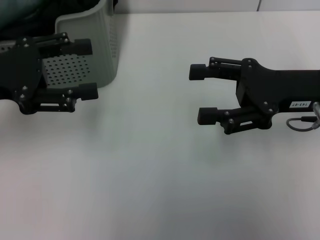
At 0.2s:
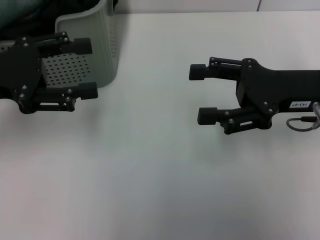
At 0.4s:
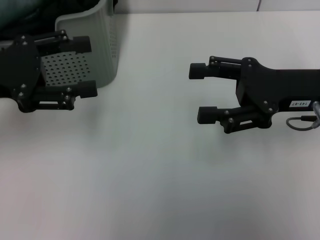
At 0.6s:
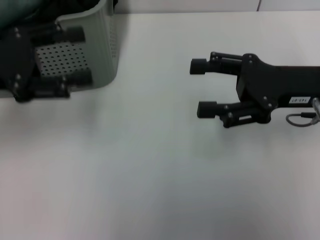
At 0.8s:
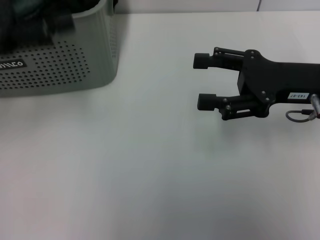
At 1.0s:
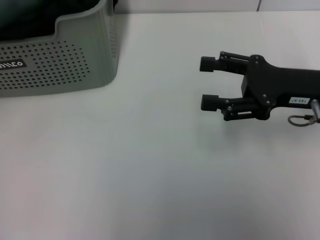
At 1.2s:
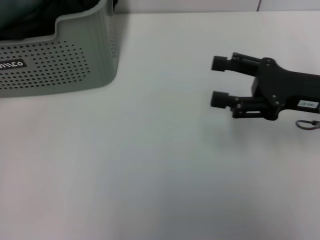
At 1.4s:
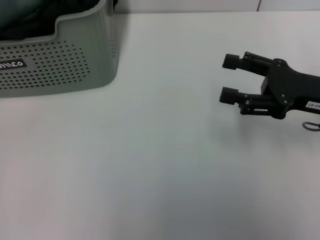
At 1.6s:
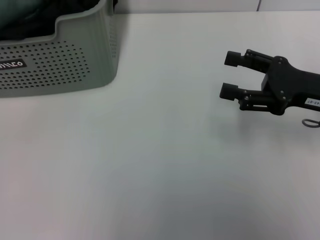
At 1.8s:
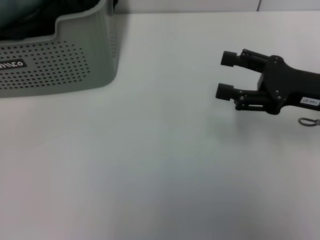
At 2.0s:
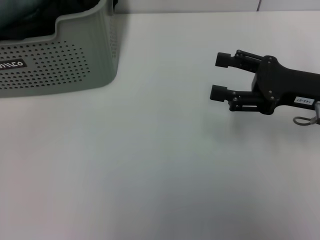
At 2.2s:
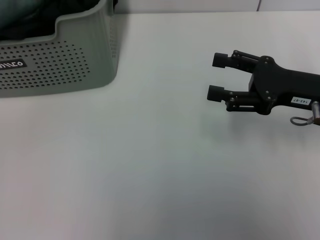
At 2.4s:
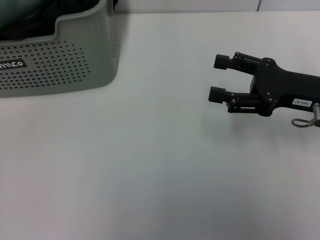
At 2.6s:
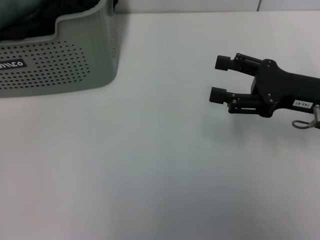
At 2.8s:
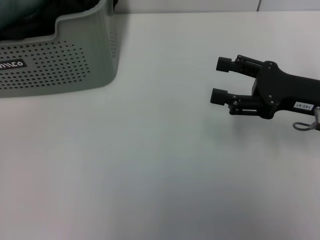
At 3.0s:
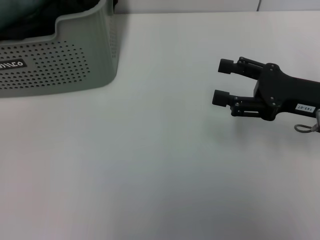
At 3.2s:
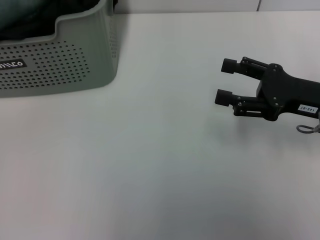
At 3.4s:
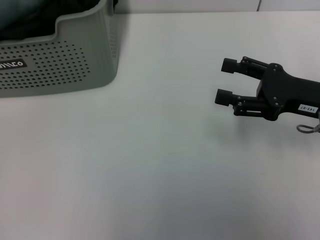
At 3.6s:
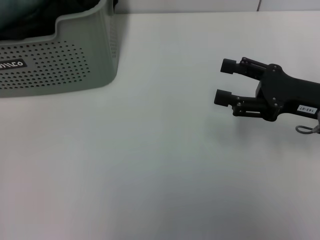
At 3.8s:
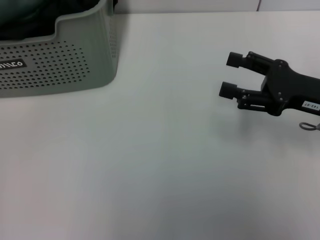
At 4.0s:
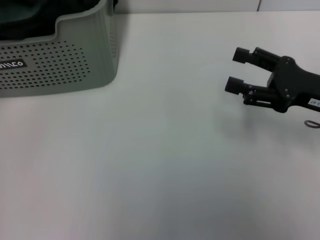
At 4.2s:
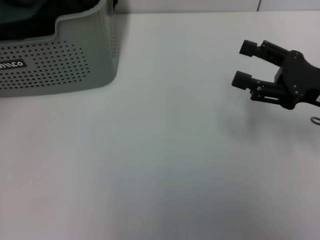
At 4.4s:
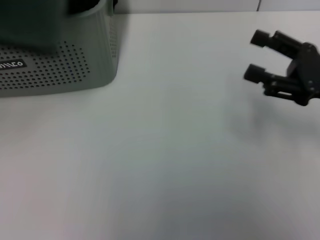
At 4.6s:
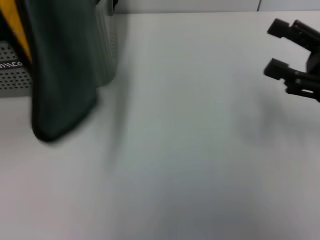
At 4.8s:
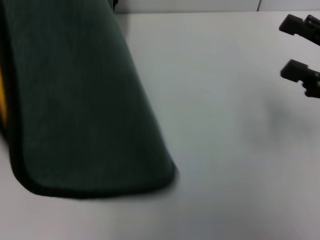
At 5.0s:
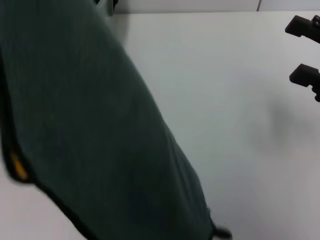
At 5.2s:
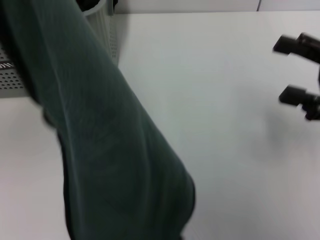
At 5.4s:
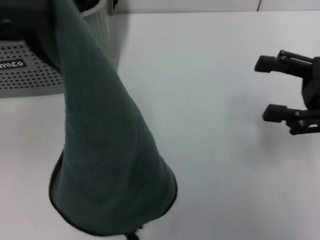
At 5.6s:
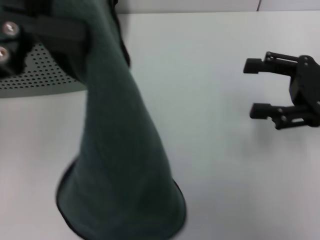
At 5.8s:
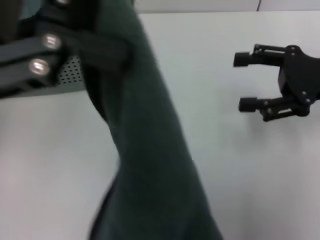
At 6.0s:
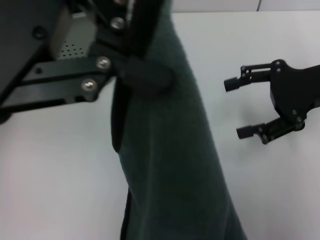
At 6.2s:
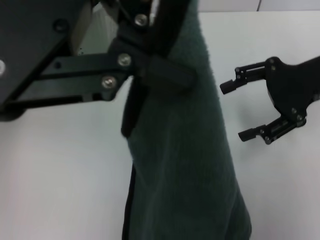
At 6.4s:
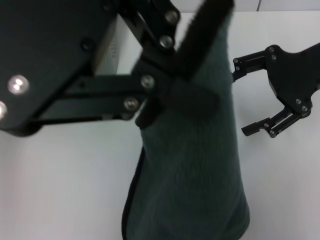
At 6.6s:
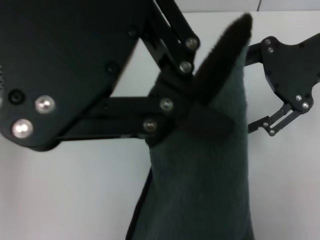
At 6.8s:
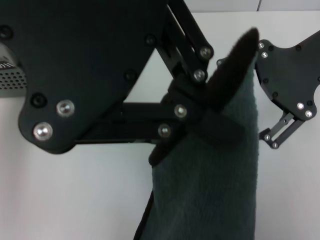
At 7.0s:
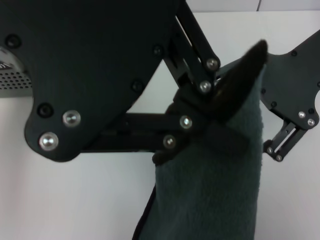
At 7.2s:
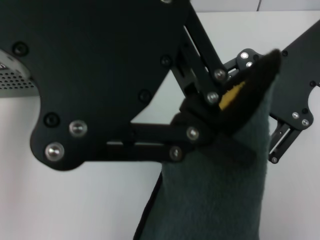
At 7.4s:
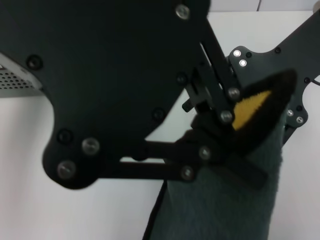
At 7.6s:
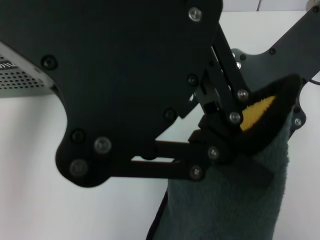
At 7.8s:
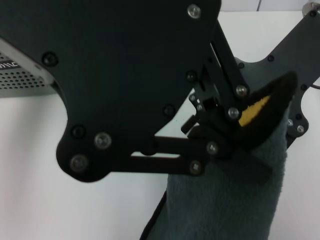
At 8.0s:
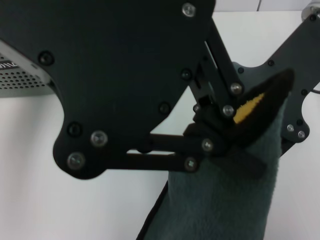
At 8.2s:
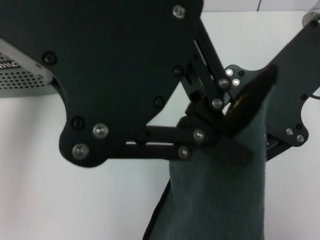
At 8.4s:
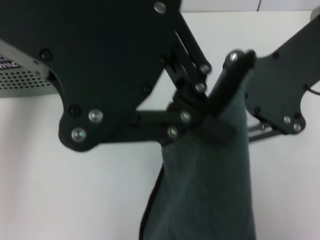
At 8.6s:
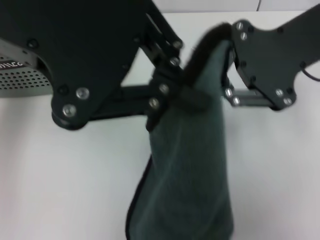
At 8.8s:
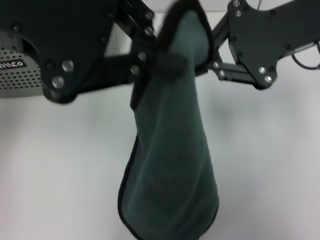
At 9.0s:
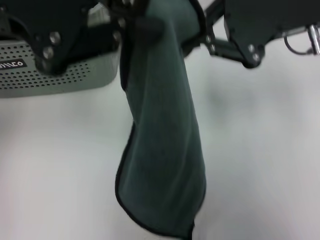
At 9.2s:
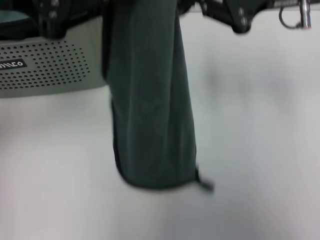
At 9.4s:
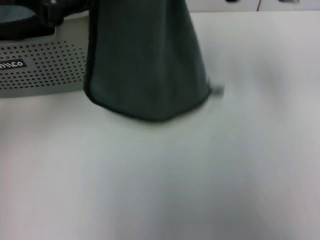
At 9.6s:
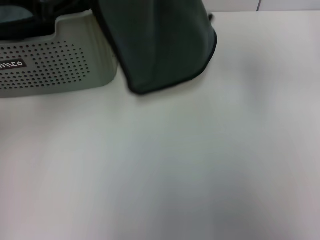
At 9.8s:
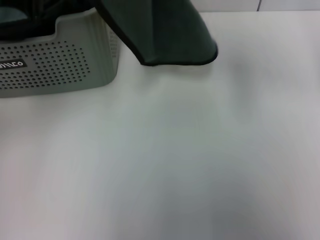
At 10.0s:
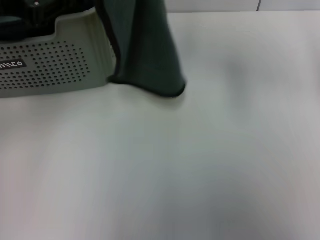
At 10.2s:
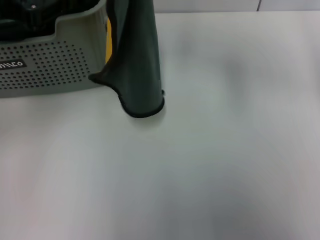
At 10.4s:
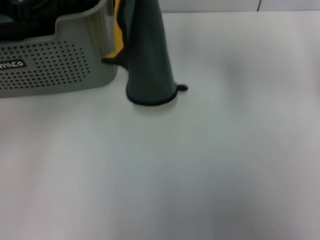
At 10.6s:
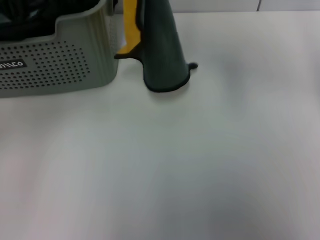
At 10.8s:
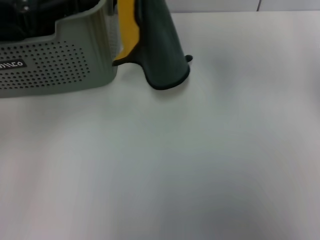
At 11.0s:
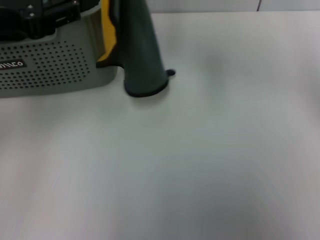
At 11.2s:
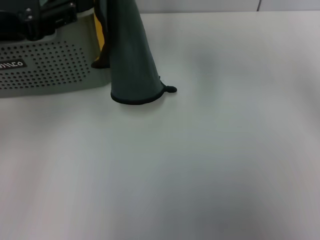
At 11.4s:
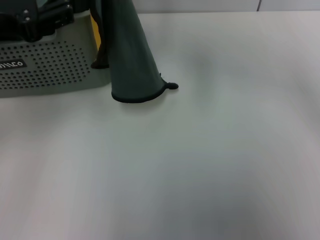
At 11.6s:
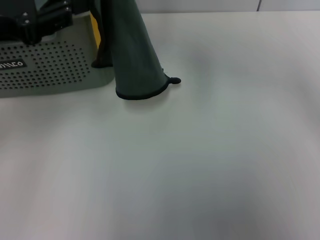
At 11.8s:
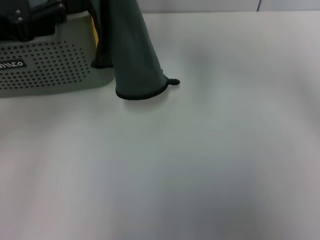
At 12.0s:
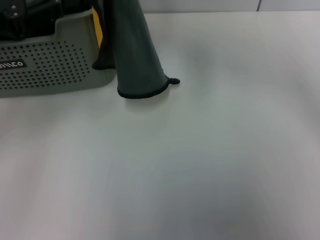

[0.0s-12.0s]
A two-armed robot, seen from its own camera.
Task of the whole recording: pick up the towel from the storage box and lay it flat on the table.
Step, 0.0s to 4.0s: Pick up a towel with the left gripper.
Step, 4.2s to 8.2s: Spread the towel flat with the left gripper.
0.0s to 1.6s: The left gripper moves upward and to the left, about 15 cm.
1.6s to 3.0s: The grippers stay close to where they were, moving slightly.
3.0s to 4.4s: The left gripper travels upward, to the right and backward by approximately 15 cm, and closes its fingers.
4.4s to 6.0s: The left gripper is displaced to the right by some 10 cm. The right gripper shifts roughly 5 cm upward.
6.0s to 7.6s: The left gripper is displaced to the right by approximately 5 cm; the right gripper travels upward and to the left by some 15 cm.
7.6s to 9.0s: The right gripper closes its fingers, while the left gripper shifts roughly 10 cm to the left and downward.
9.0s to 10.4s: The right gripper travels to the left by approximately 5 cm. The left gripper is displaced downward and to the left by about 10 cm.
10.4s to 12.0s: The right gripper is displaced to the left by about 5 cm.

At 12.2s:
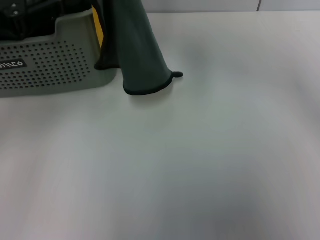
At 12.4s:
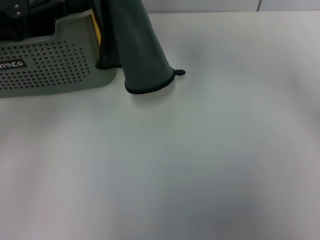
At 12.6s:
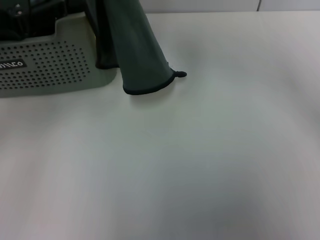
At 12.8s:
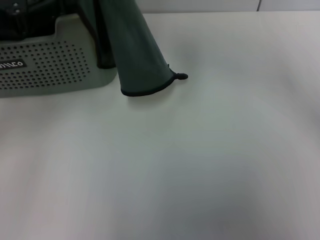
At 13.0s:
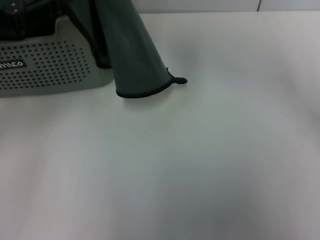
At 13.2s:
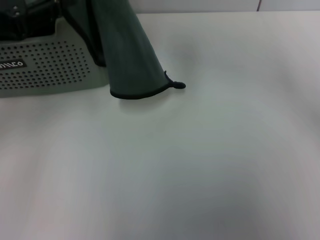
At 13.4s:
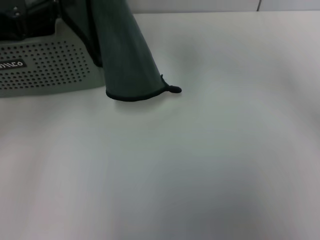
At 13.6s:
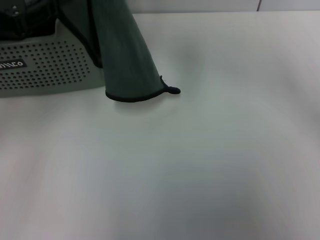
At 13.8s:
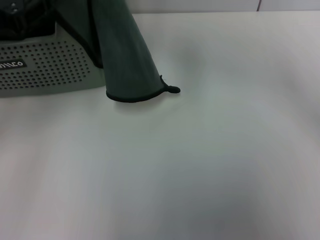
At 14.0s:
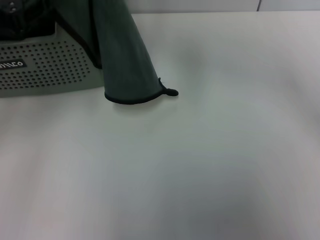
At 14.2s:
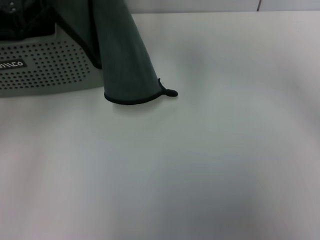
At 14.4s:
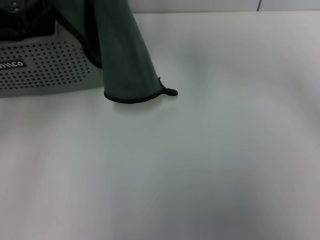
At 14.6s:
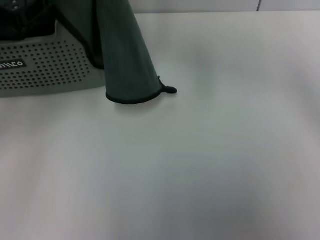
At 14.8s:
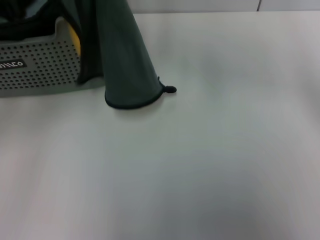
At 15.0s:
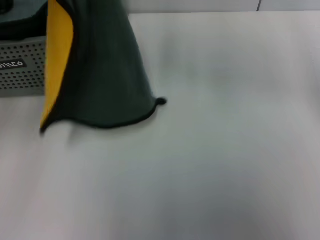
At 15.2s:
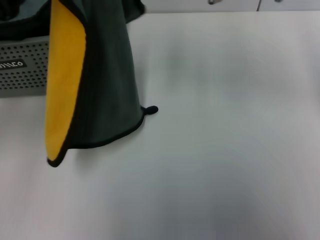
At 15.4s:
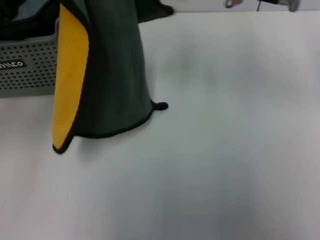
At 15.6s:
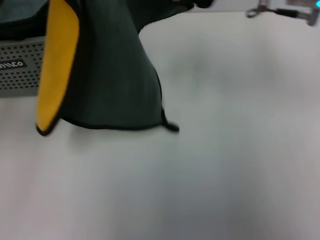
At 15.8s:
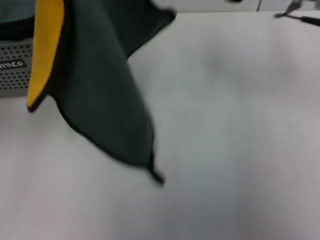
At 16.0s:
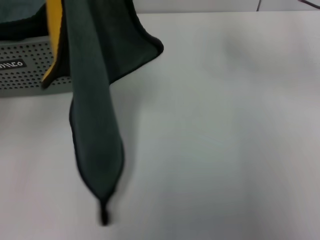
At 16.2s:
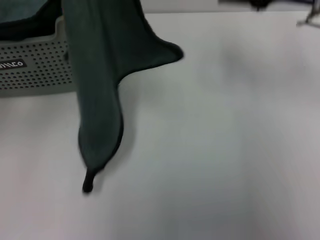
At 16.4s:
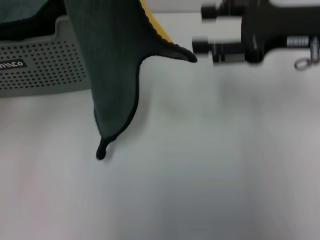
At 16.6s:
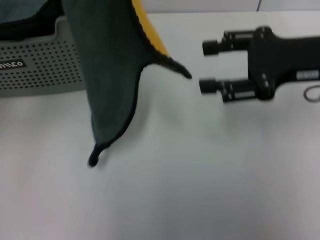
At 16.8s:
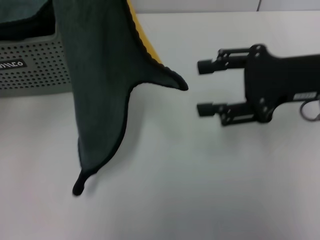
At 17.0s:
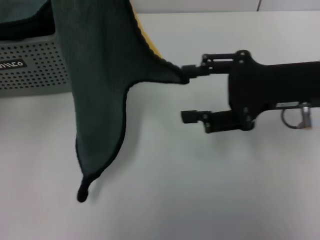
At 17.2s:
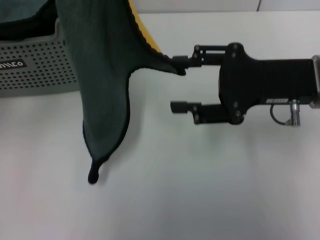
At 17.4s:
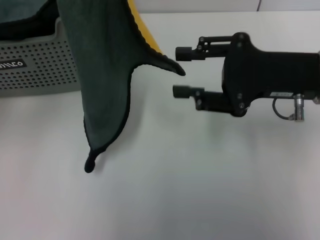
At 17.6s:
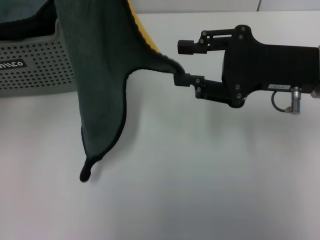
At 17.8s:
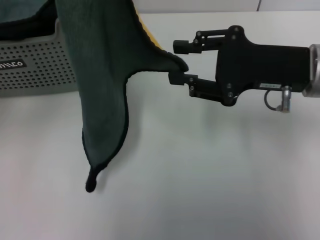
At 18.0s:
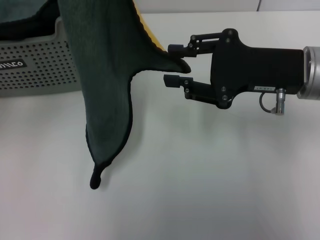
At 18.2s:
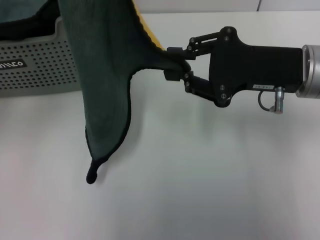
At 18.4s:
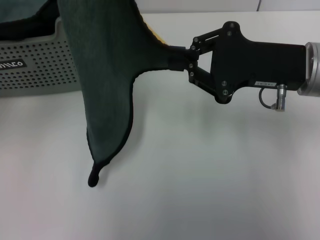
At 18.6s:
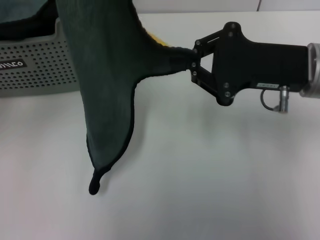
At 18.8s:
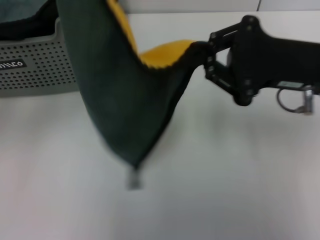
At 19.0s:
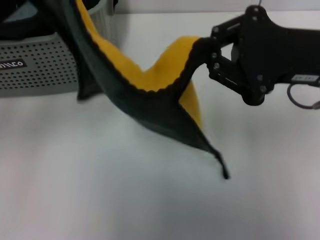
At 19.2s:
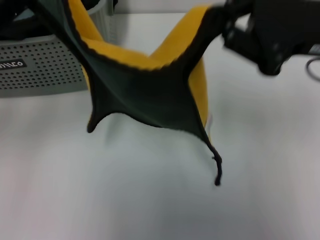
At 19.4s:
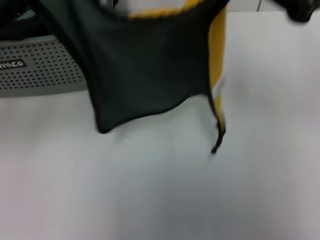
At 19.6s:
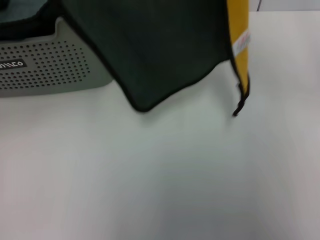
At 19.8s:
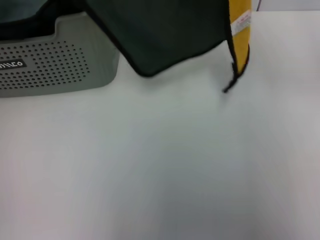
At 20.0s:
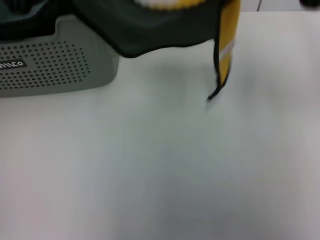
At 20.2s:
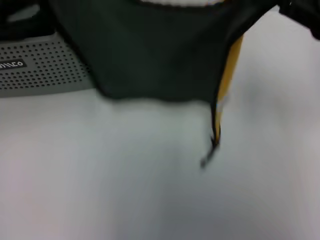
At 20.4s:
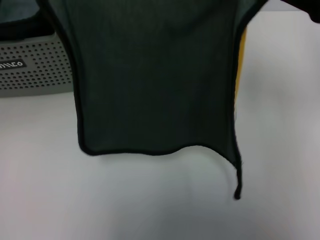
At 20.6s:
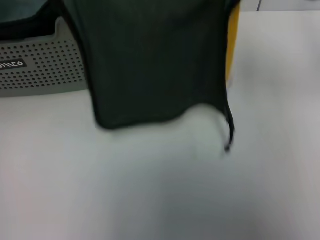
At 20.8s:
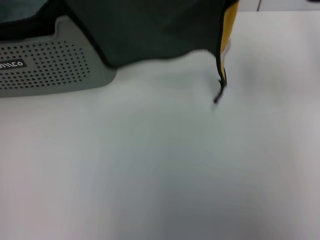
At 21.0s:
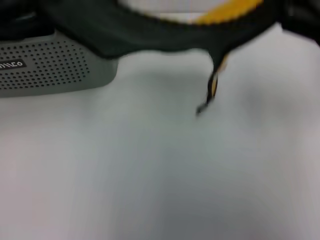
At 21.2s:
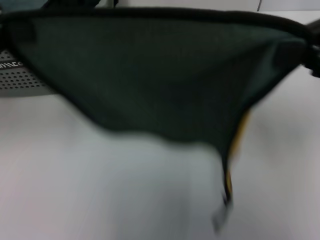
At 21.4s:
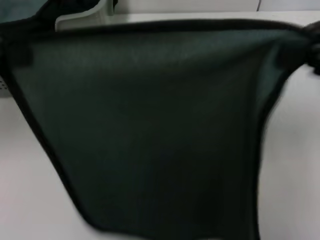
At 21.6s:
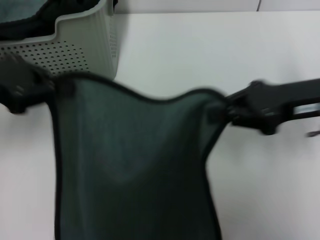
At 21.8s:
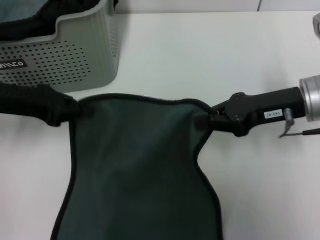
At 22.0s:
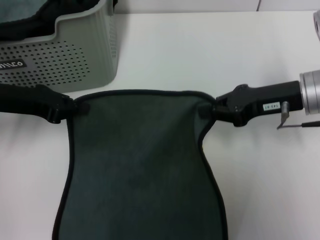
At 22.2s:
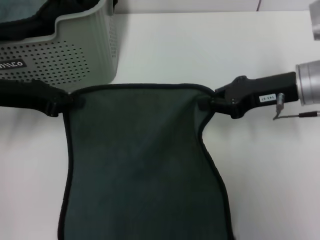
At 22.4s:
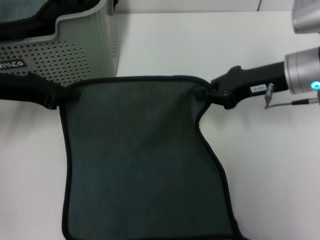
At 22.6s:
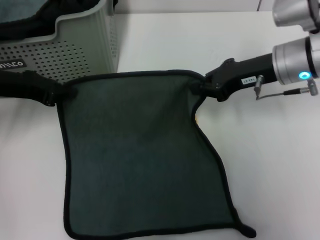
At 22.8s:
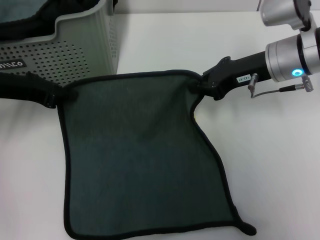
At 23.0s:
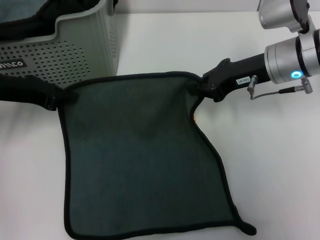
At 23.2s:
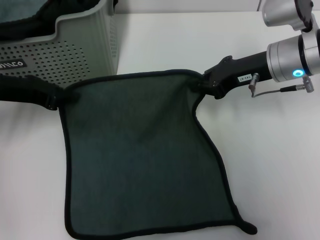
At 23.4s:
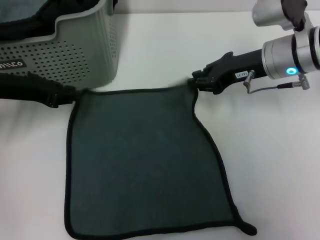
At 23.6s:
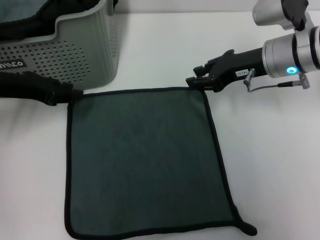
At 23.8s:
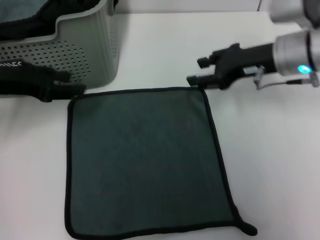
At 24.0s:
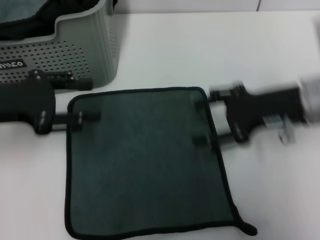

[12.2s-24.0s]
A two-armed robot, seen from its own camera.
Task of the whole recording: pick up the towel from the storage box and lay it flat on the table.
Step, 12.2s to 23.8s: Spread the towel flat with the right gripper.
12.2s to 13.6s: The grippers make only small movements.
13.6s to 15.2s: The right gripper goes approximately 5 cm to the right, while the left gripper closes.
15.2s to 16.6s: The right gripper goes some 15 cm to the right and downward, and opens its fingers.
16.6s to 18.2s: The right gripper closes.
18.2s to 19.6s: The right gripper is displaced upward and to the right by approximately 15 cm.
21.0s to 22.6s: The left gripper goes about 15 cm downward. The right gripper is displaced downward, to the left and forward by roughly 15 cm.
22.6s to 24.0s: Both grippers travel together backward, some 5 cm. The left gripper opens its fingers; the right gripper opens its fingers.
